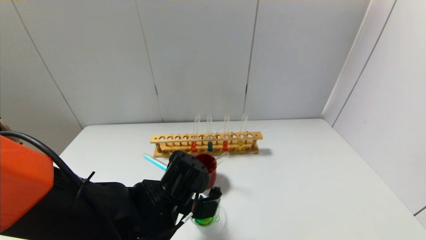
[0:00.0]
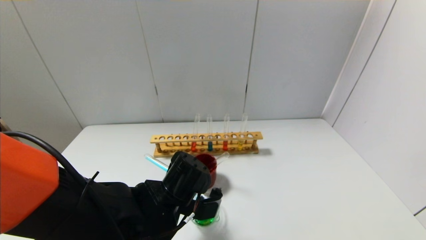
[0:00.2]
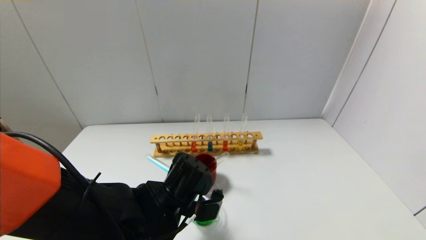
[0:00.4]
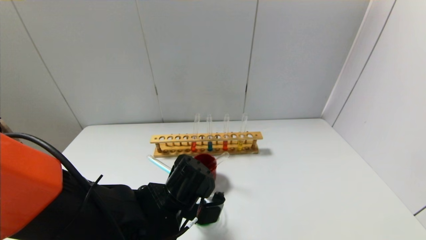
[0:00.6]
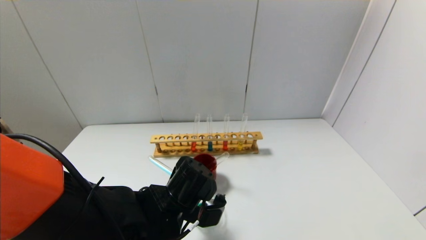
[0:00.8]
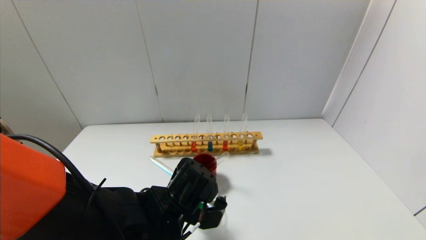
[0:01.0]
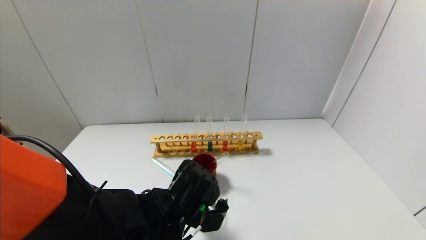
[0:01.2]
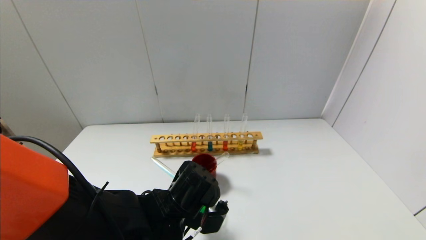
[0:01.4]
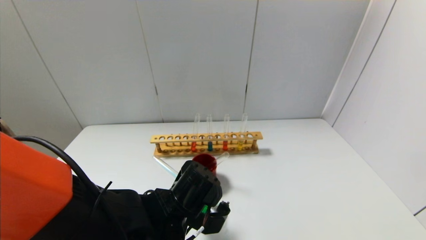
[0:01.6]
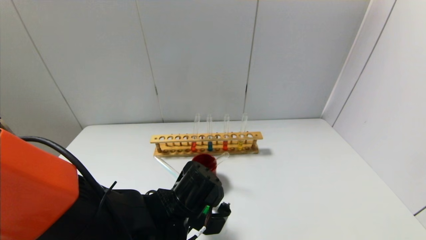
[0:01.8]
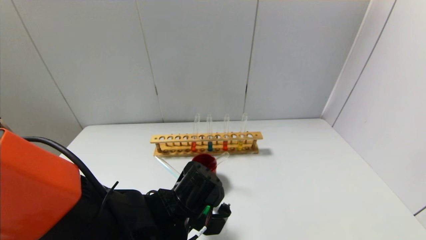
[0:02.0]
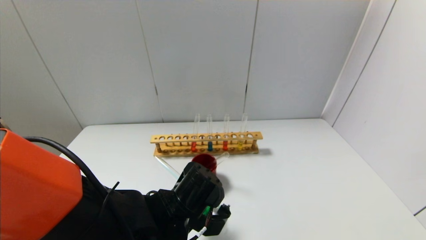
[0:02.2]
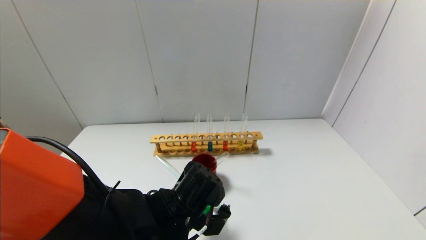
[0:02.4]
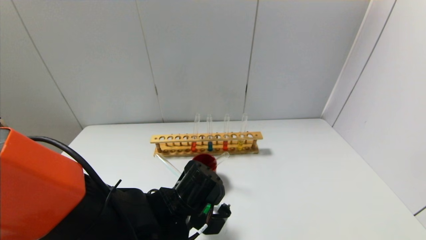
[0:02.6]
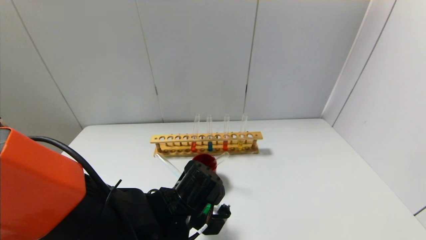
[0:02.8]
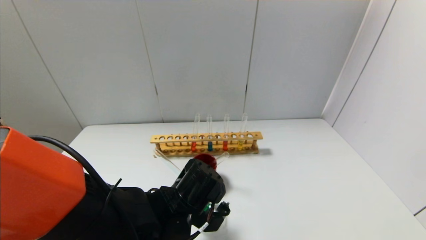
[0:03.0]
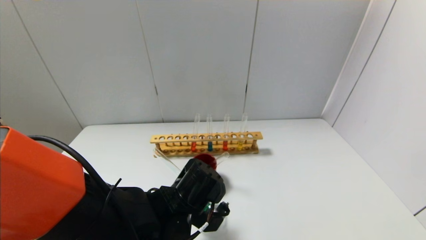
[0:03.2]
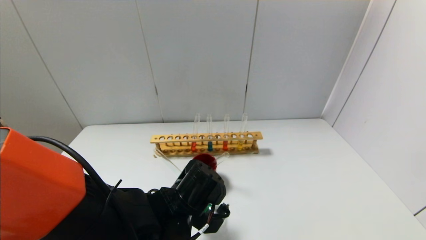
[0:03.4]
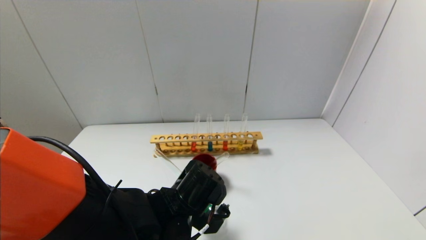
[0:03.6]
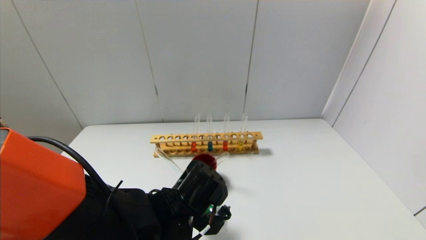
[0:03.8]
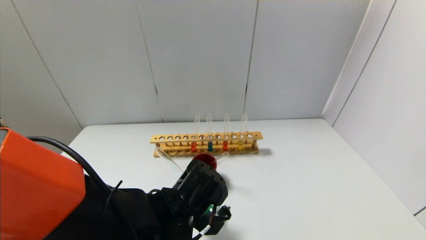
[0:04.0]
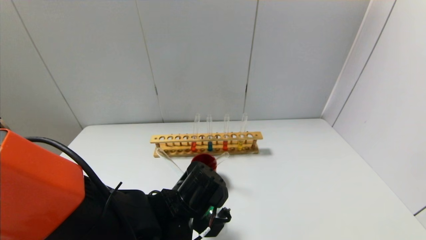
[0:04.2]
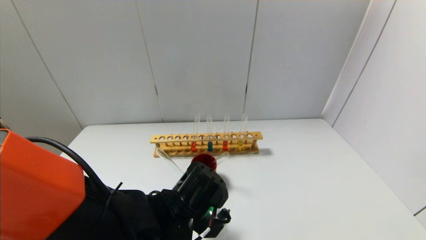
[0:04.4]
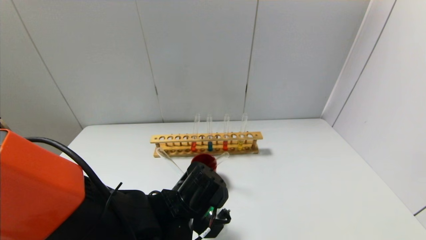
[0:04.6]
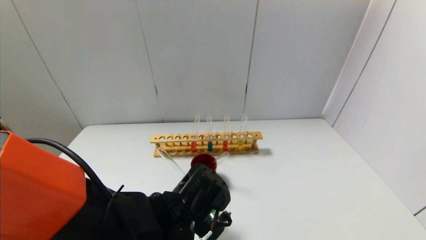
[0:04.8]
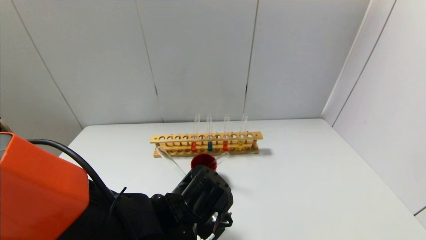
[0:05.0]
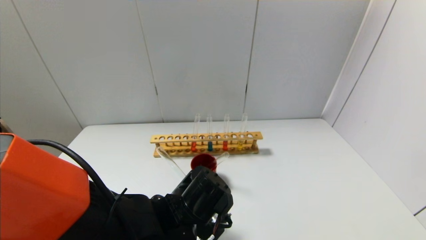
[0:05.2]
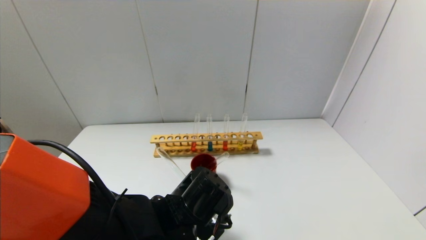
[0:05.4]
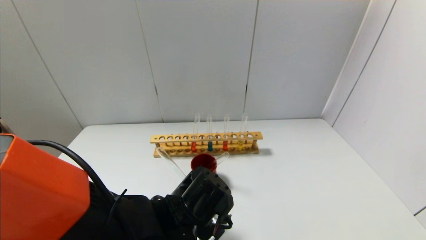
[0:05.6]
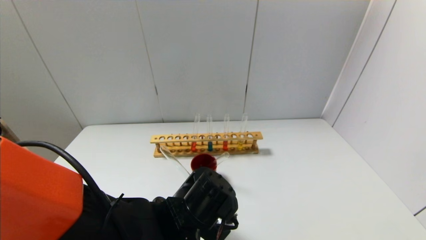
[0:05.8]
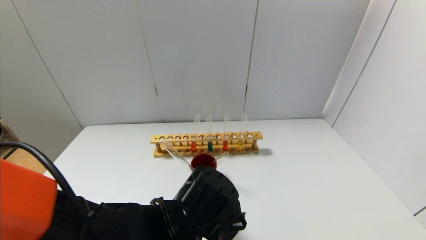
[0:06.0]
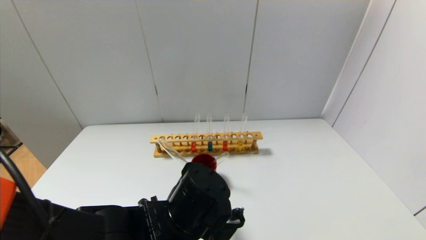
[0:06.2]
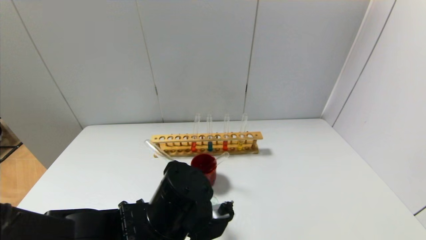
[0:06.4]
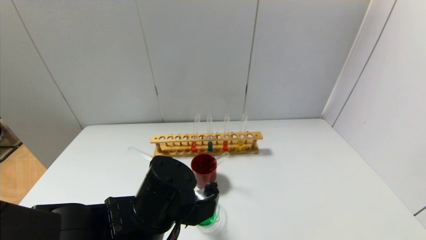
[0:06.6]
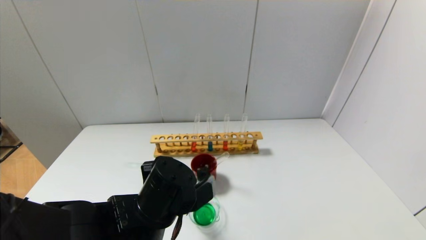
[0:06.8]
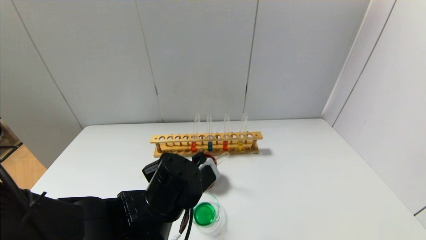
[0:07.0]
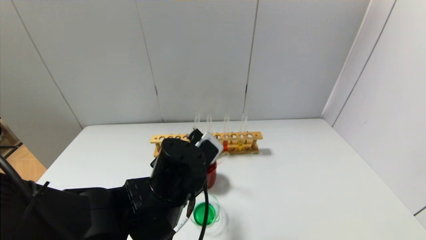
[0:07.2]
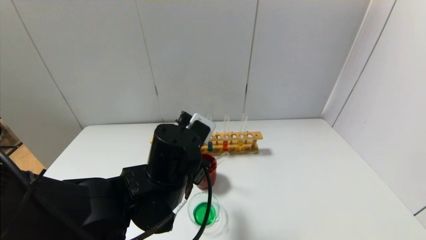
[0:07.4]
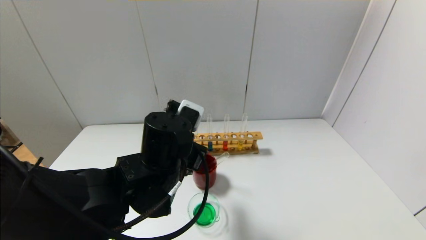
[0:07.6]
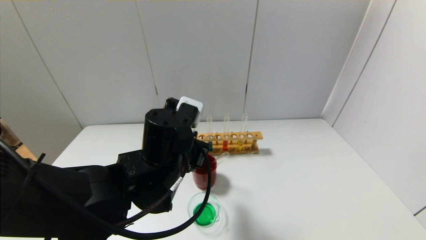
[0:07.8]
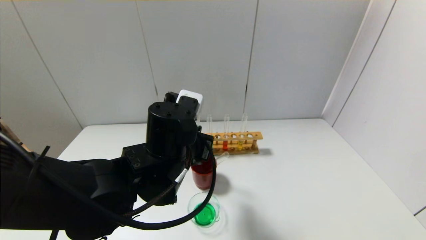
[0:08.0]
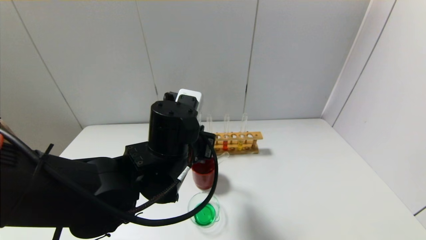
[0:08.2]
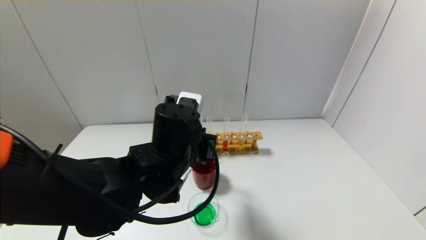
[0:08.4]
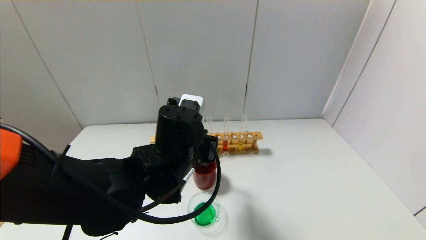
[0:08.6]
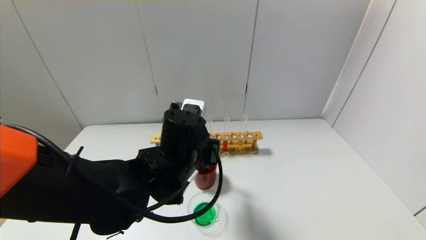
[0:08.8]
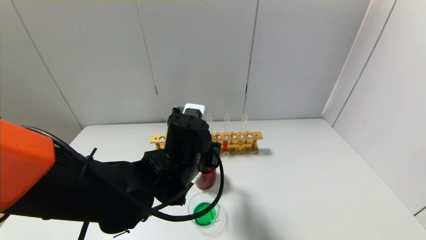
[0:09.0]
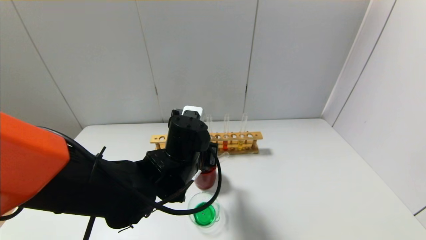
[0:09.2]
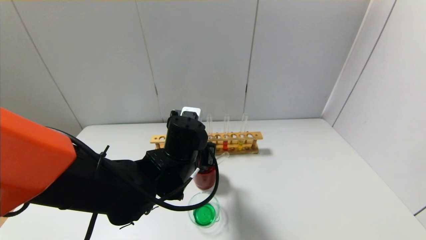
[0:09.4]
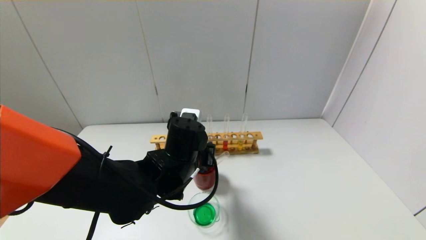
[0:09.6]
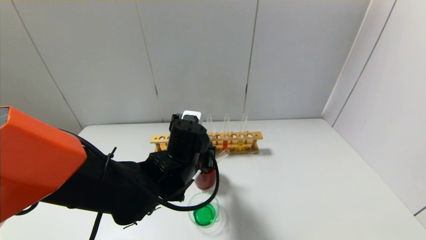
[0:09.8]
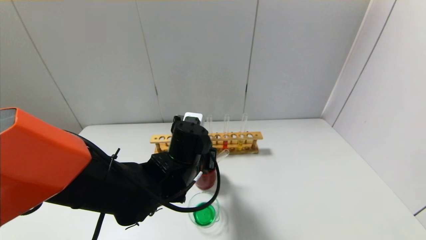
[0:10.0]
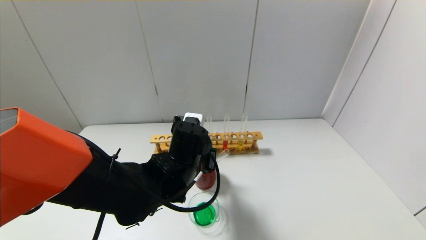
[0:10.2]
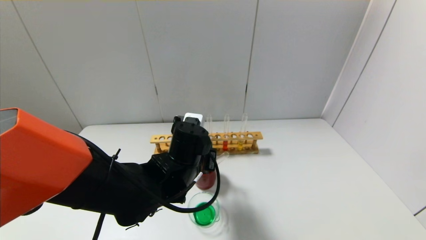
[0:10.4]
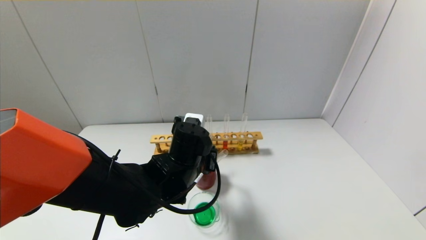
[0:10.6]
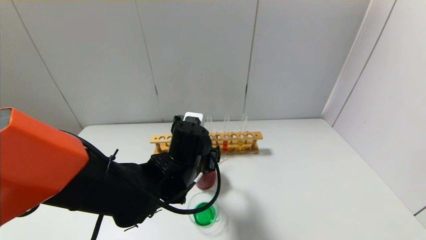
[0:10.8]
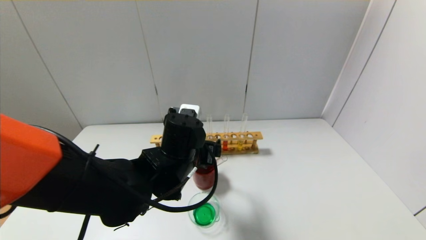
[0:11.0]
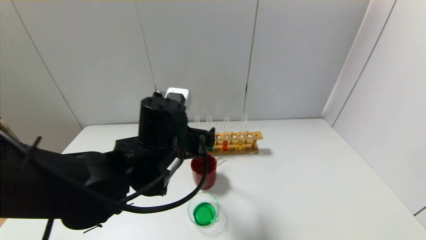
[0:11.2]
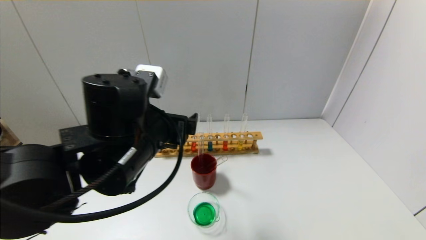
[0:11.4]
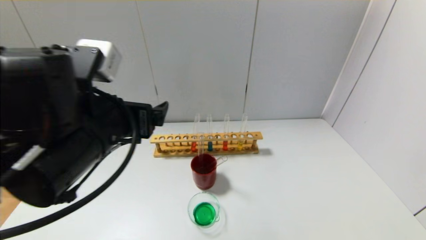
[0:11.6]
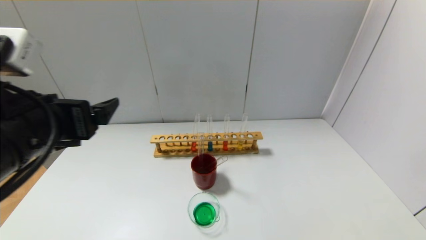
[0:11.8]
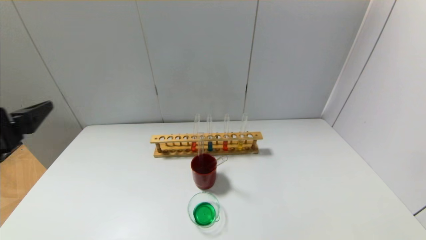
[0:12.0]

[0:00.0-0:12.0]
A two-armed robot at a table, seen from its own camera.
Step, 0:00.0 to 0:06.0: Pour the blue reagent into the graduated cylinder with the left gripper.
Step, 0:06.2 to 0:10.6: Place the test tube into the brown cup with the left gripper.
0:00.0 to 0:03.0: The grippers move only a little.
0:03.0 to 0:04.4: Neither gripper changes place.
0:04.4 to 0:06.0: The grippers move only a little.
0:06.0 to 0:07.6: The left gripper is displaced upward by some 5 cm.
0:09.0 to 0:10.4: There are only small adjustments of the grippers.
0:10.4 to 0:12.0: The left gripper moves to the left, backward and upward, roughly 30 cm, and opens its fingers.

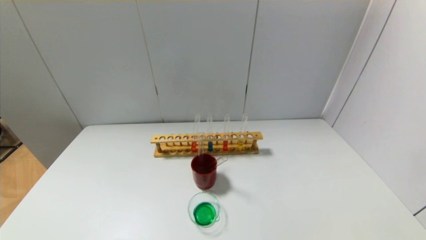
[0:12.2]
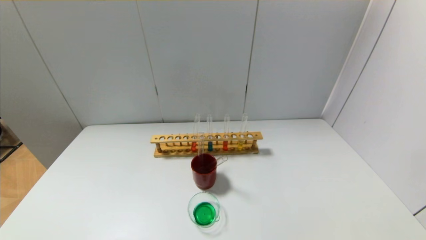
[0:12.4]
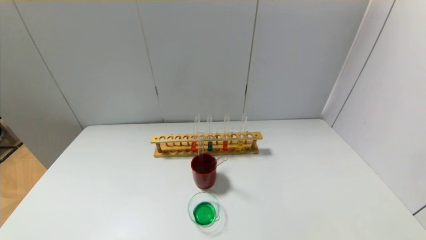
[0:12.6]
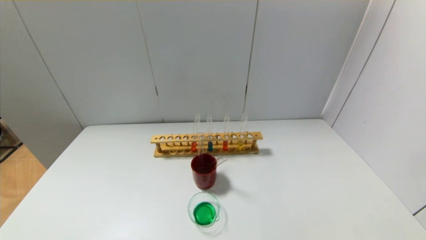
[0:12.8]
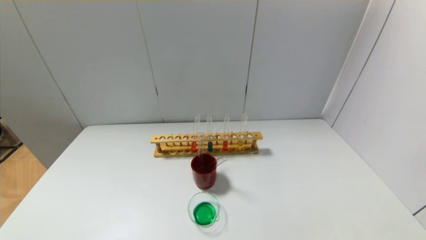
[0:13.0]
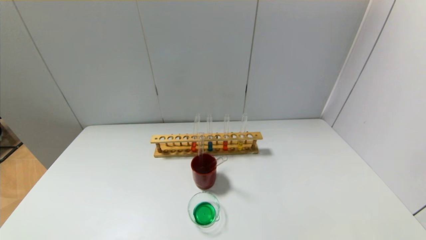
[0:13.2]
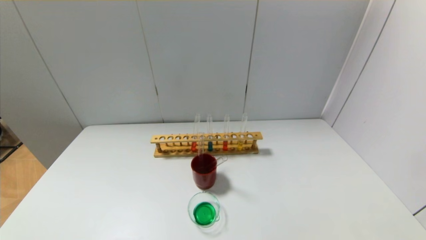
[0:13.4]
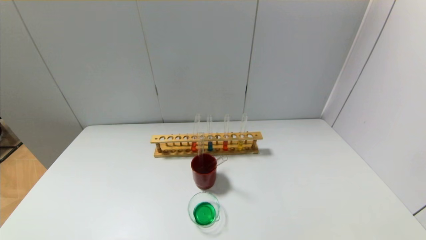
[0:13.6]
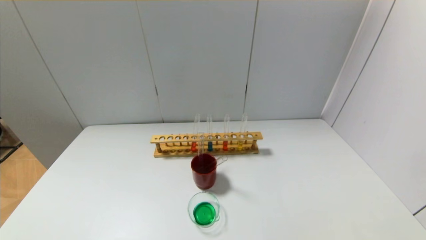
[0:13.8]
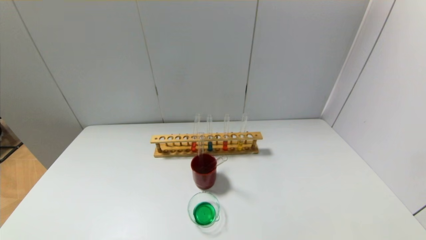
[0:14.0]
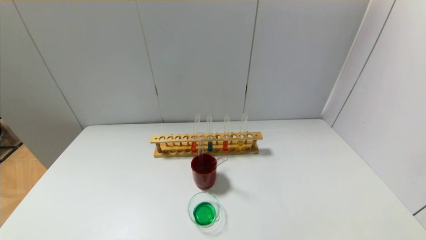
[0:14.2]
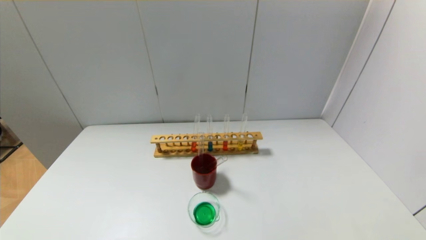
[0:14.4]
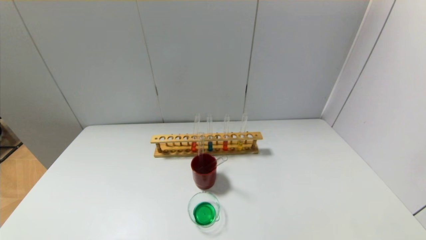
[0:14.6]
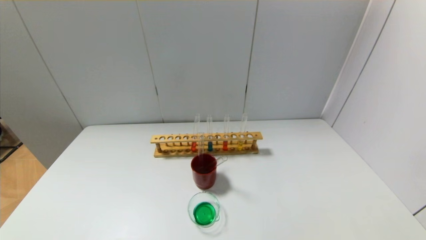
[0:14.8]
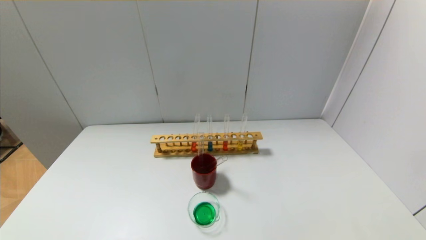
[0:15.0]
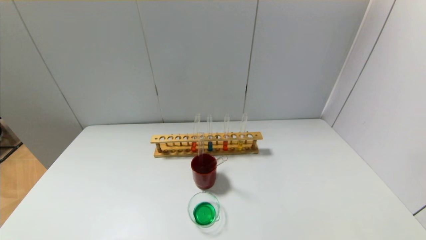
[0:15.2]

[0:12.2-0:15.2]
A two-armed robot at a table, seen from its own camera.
0:13.8 to 0:15.2: Neither gripper changes place.
